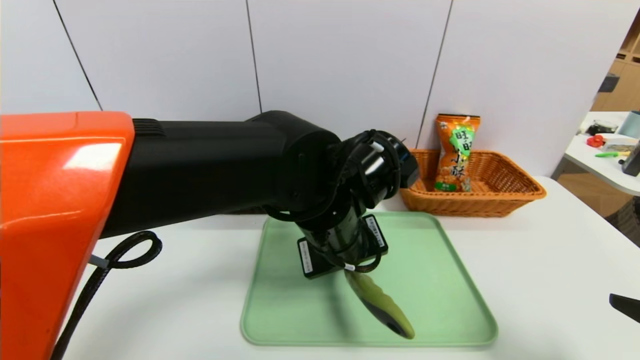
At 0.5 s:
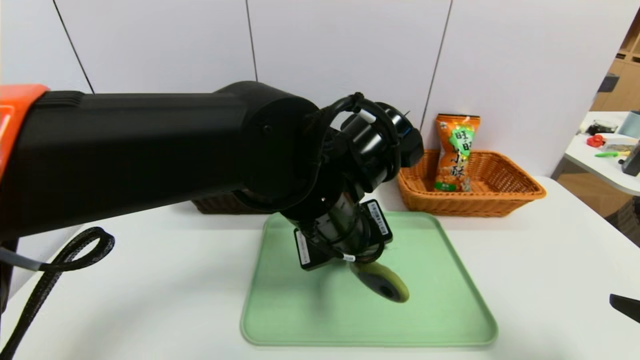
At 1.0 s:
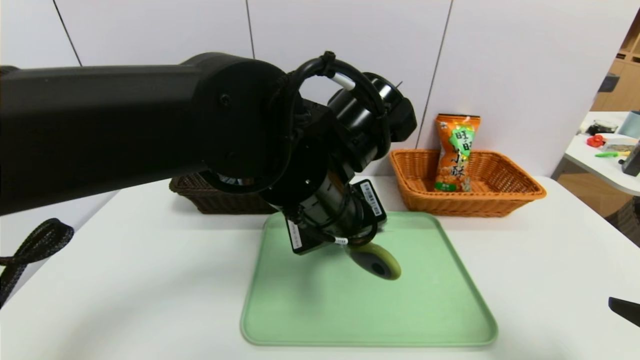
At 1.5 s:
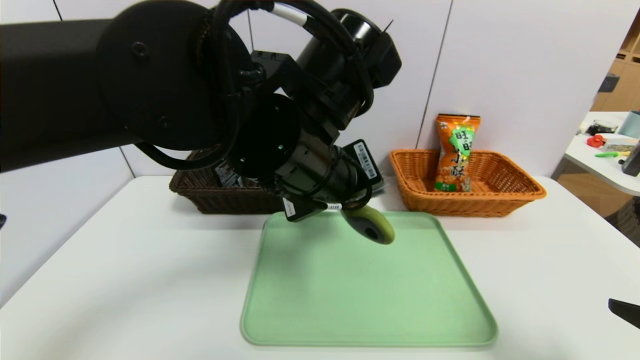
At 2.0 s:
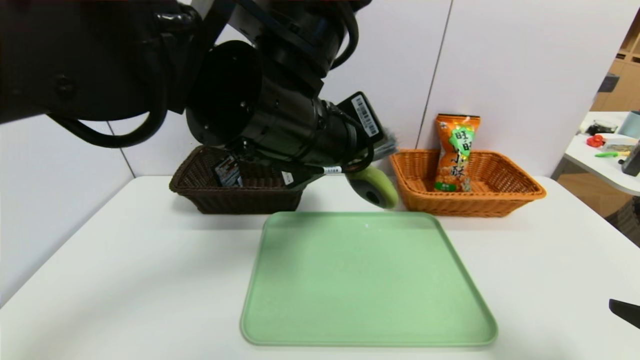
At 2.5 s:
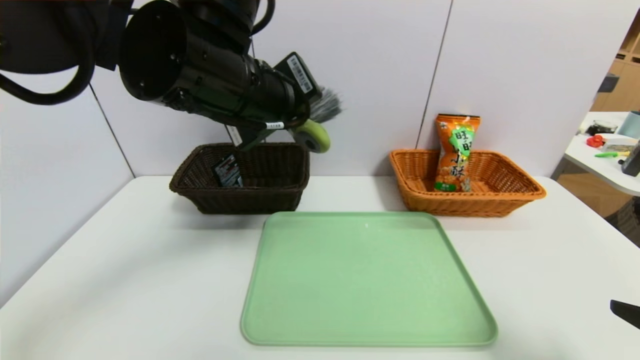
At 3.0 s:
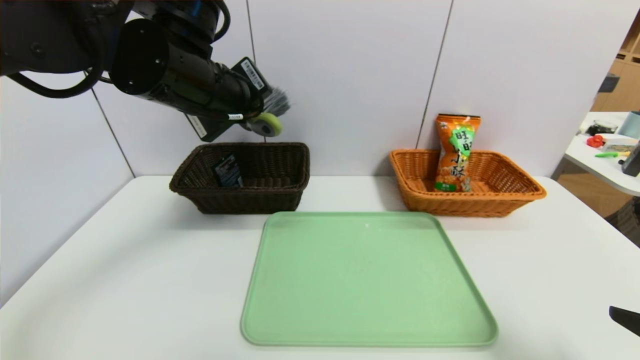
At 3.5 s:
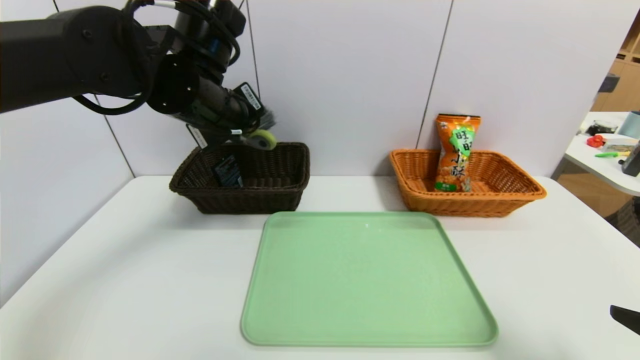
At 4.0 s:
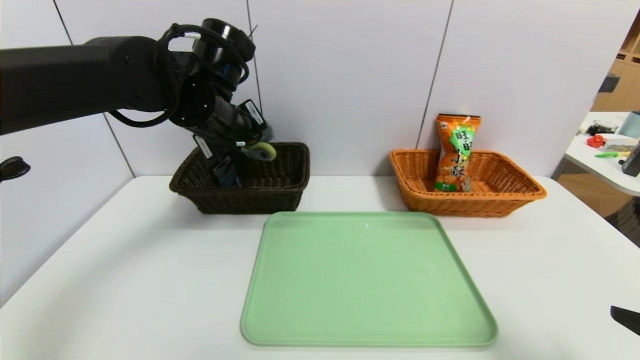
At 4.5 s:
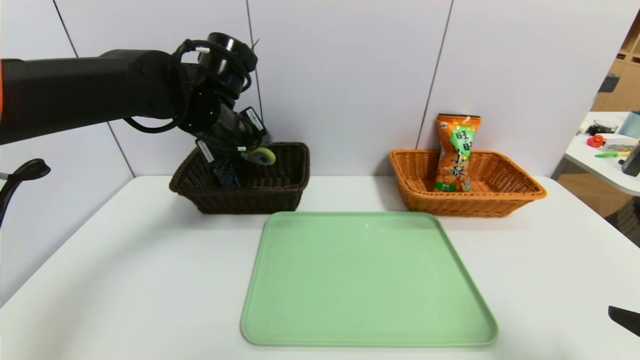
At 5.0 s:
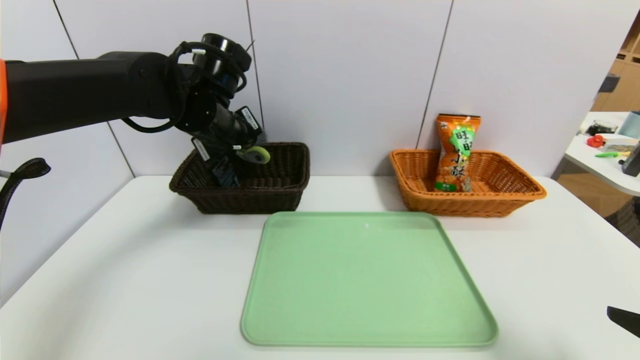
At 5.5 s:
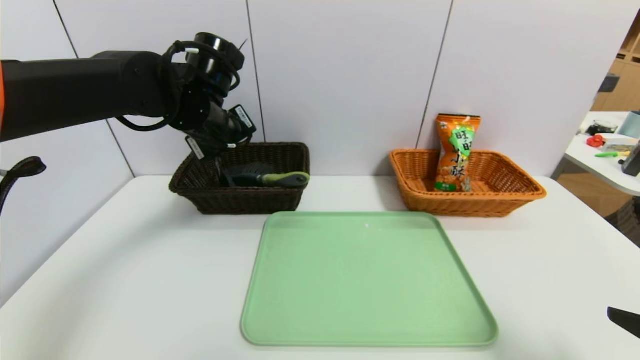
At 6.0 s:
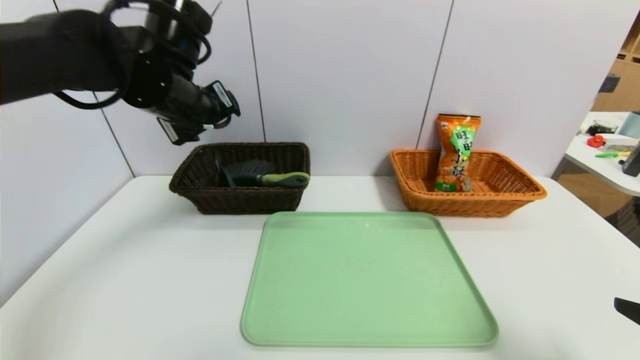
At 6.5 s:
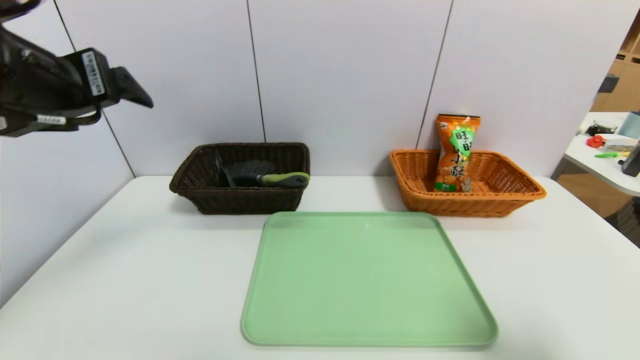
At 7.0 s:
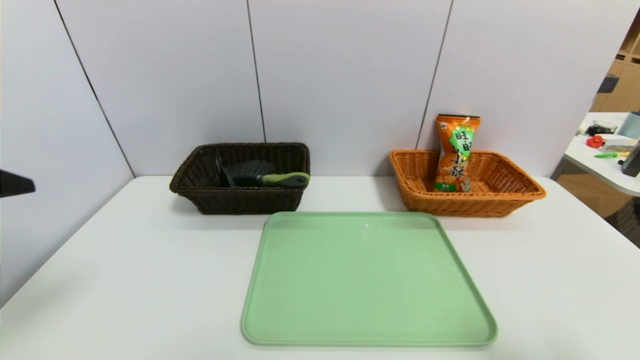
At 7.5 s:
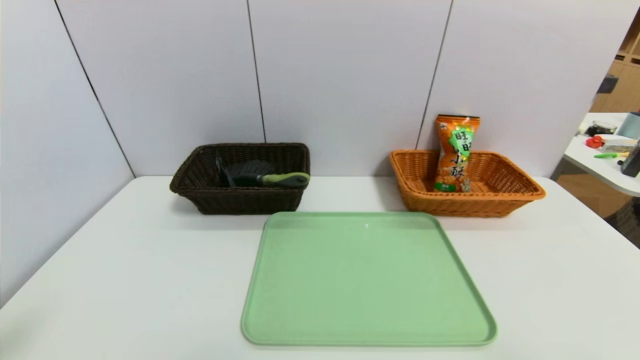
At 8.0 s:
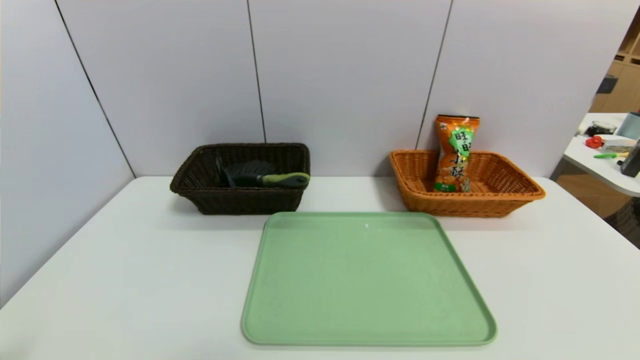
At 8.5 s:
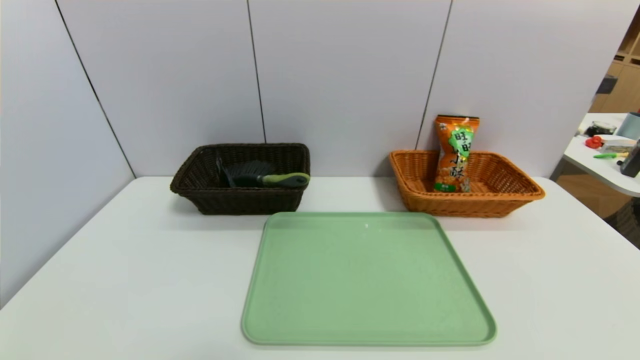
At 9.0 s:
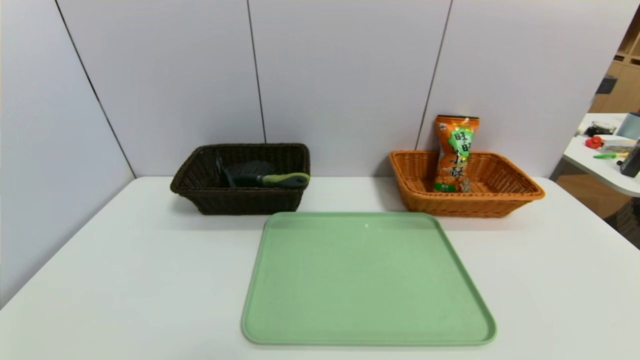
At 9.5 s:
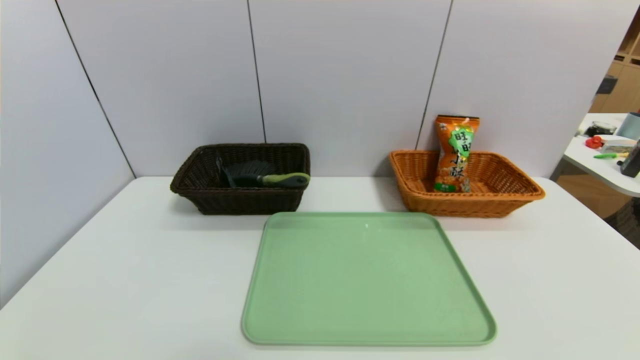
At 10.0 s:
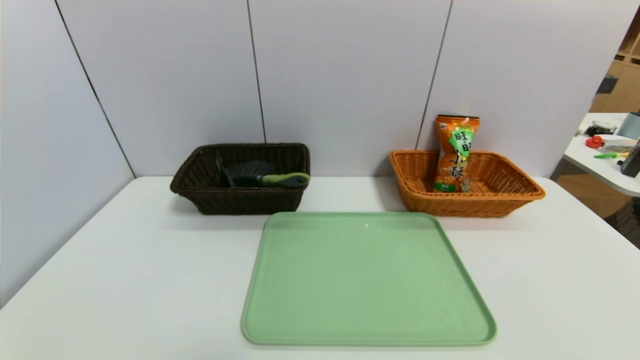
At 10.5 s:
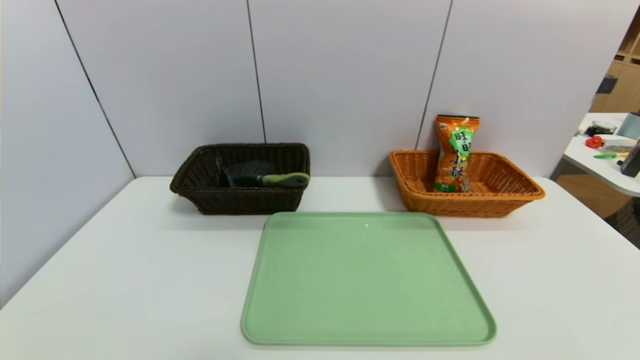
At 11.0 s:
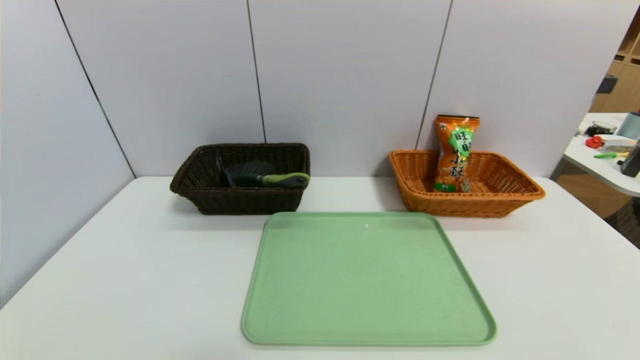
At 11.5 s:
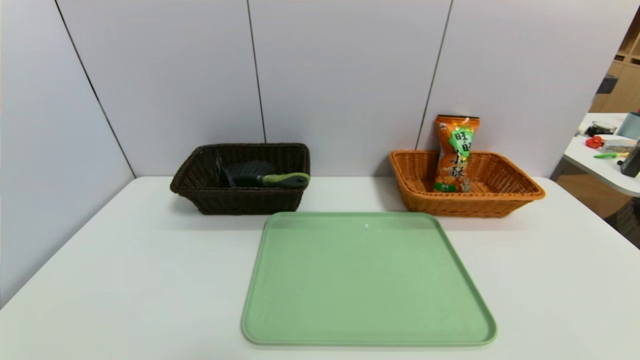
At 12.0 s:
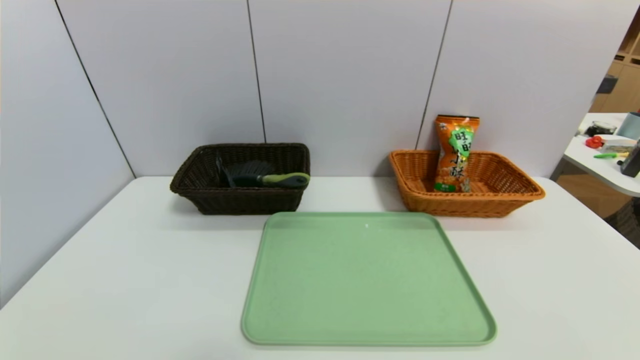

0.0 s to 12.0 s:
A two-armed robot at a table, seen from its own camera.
Task of the whole recording: place the food in the right basket with the right gripper, and place the non food items in the left basket with the left gripper.
Step, 0.0 to 5.5 s: Grasp the brush and put it in the left basket.
0.0 to 2.0 s: The left gripper shifts roughly 10 cm upward.
2.0 to 4.0 s: The left gripper goes approximately 15 cm forward and to the left.
4.0 to 6.0 s: The left gripper opens.
6.0 to 8.0 s: The left gripper moves backward, about 35 cm. The right gripper goes some 10 cm backward.
